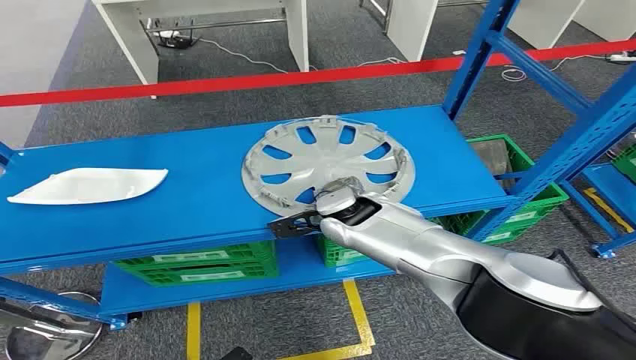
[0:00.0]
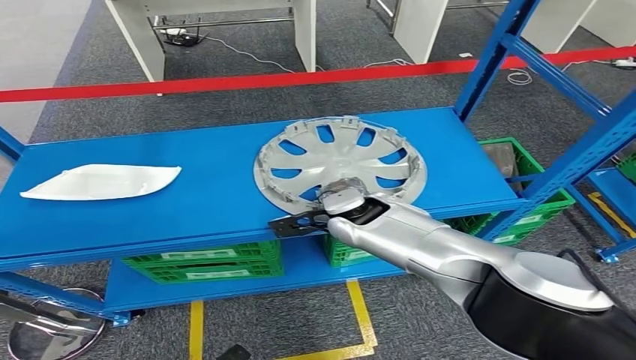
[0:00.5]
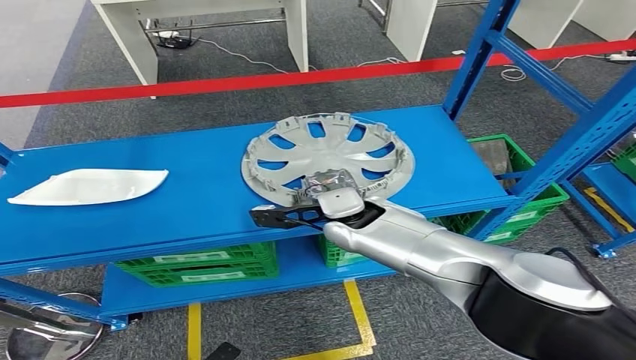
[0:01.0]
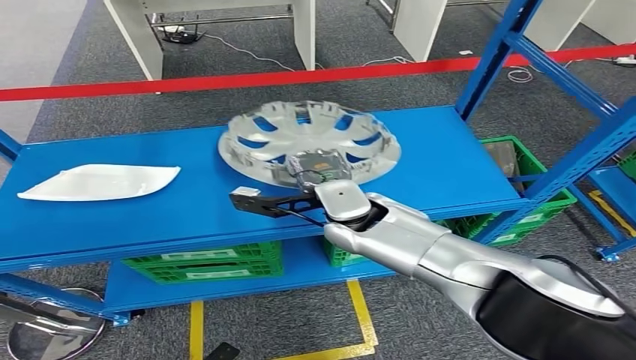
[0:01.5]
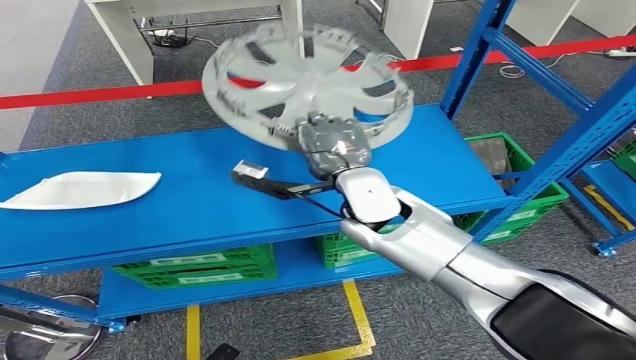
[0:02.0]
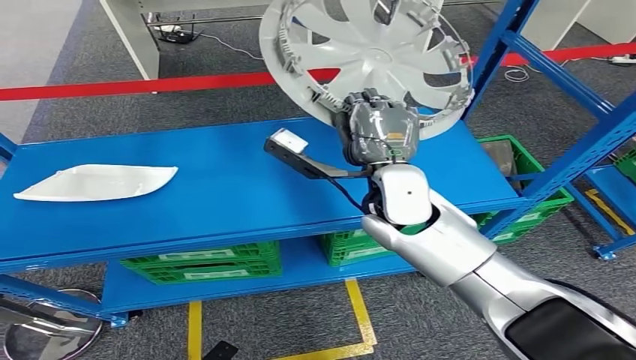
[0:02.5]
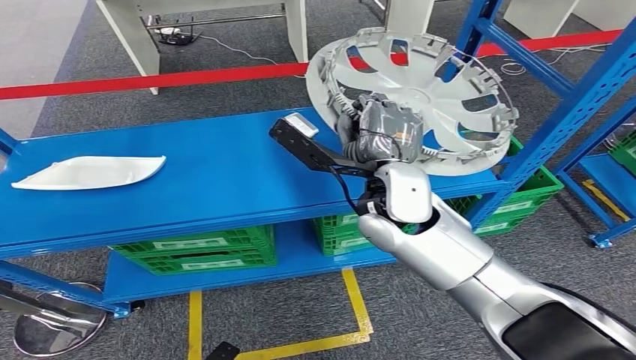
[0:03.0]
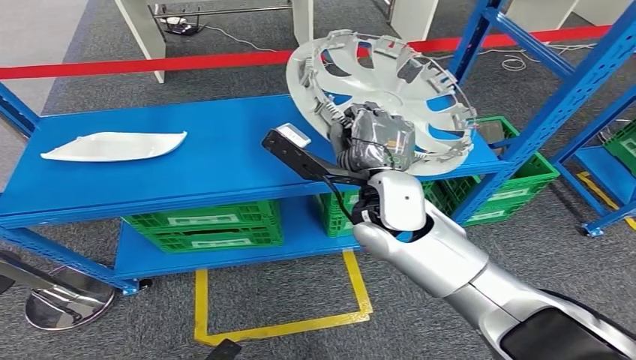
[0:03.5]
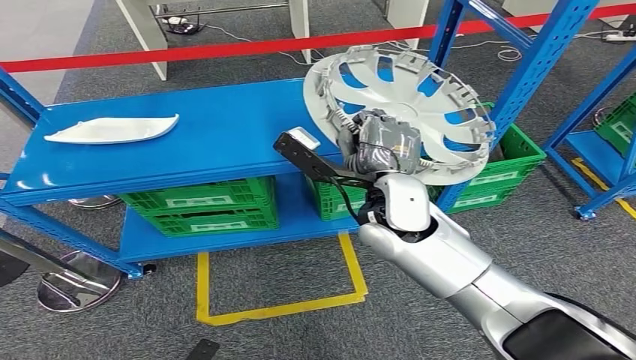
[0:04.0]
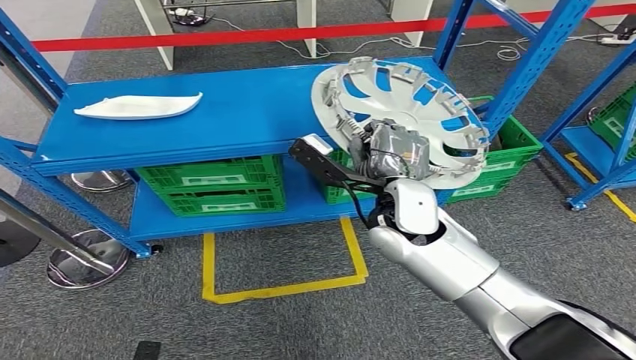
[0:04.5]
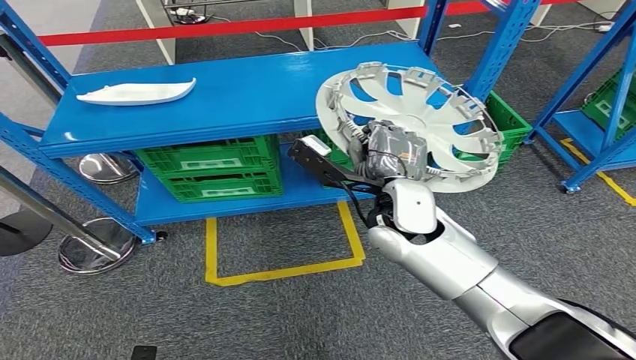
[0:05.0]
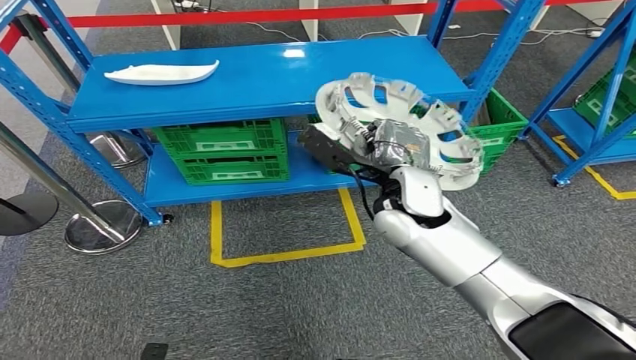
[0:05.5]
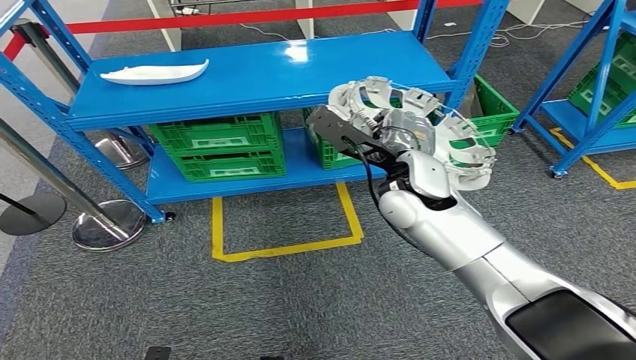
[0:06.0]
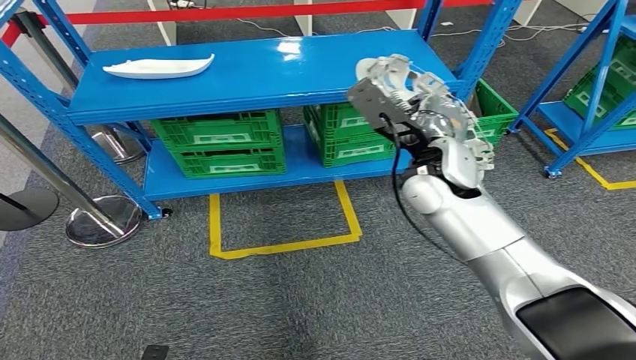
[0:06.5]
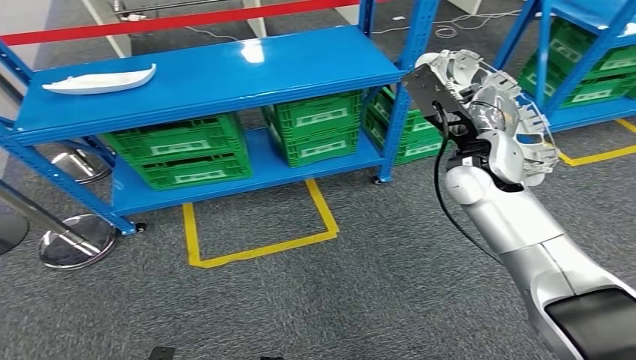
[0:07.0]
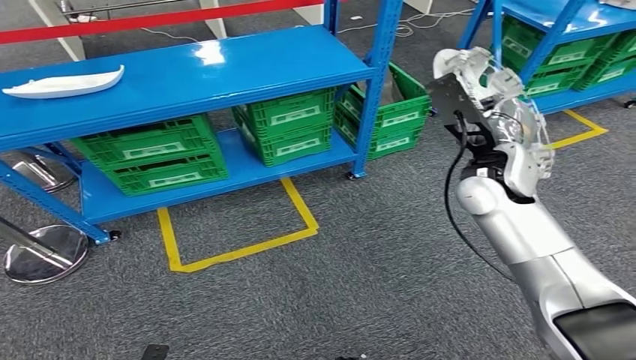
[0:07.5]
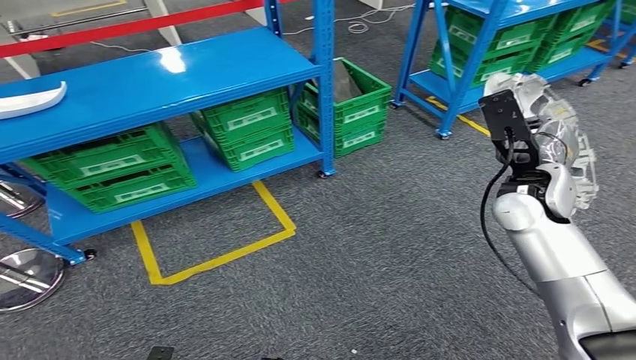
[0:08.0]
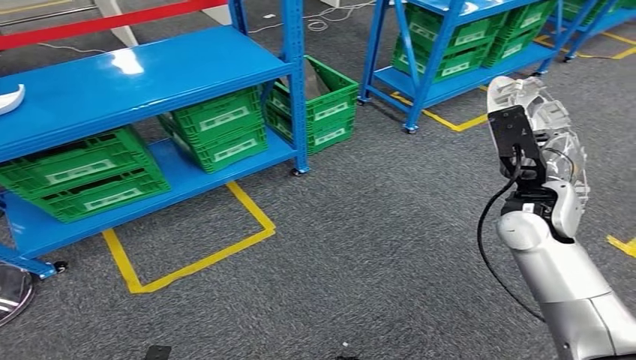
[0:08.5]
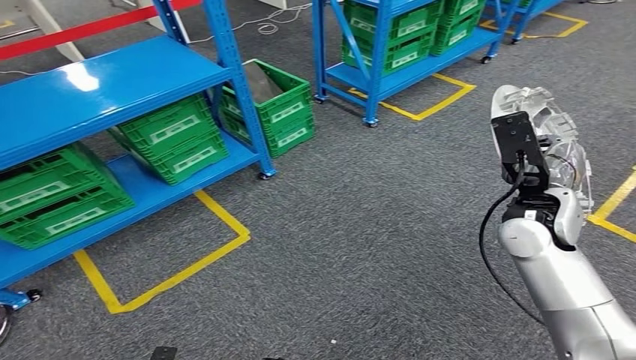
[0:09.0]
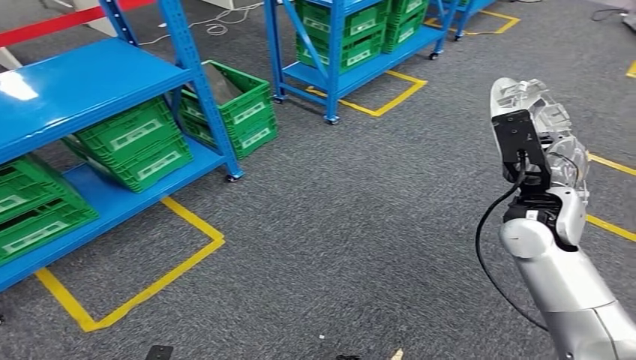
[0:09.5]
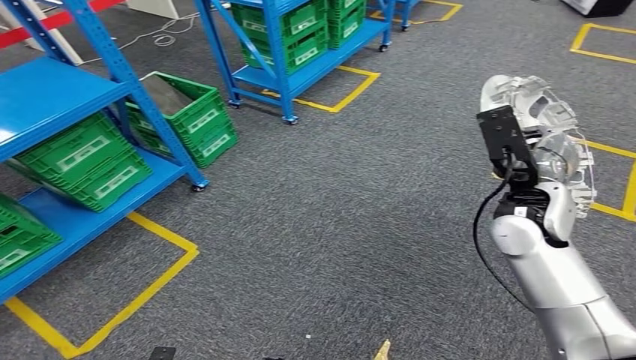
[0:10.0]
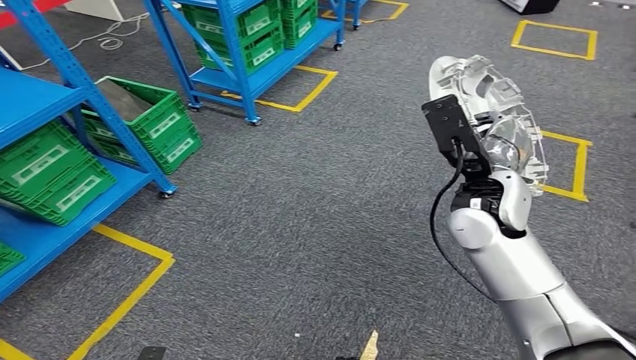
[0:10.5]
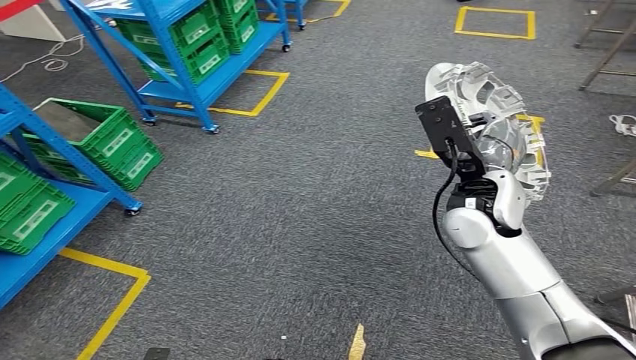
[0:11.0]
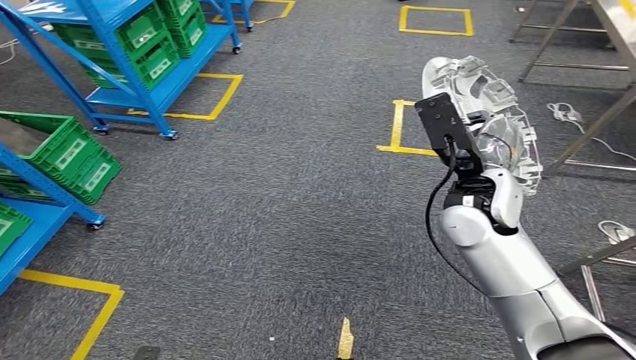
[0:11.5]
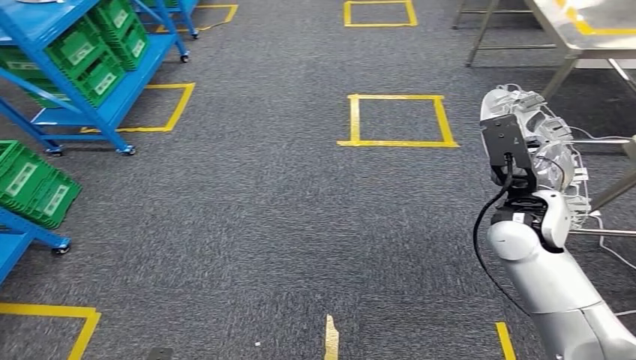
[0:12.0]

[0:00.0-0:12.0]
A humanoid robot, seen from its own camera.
Step, 0:00.0 to 0:04.0: Pick up the small component from the shelf.

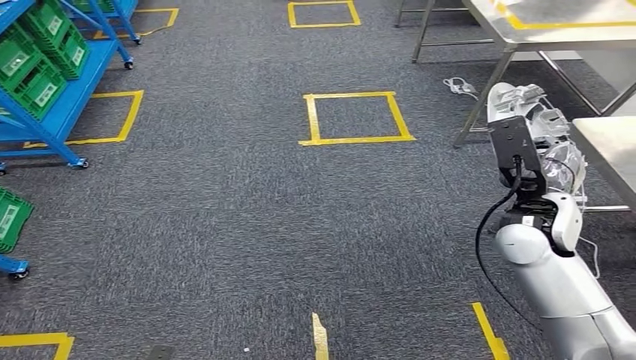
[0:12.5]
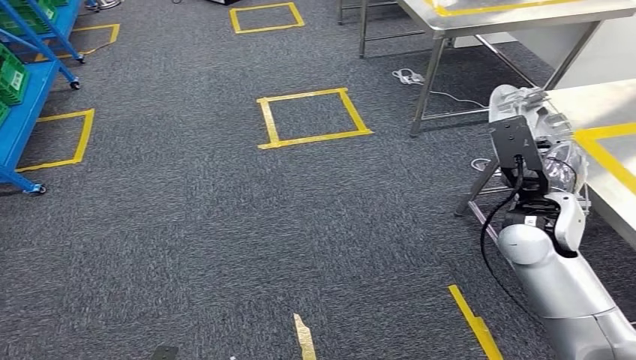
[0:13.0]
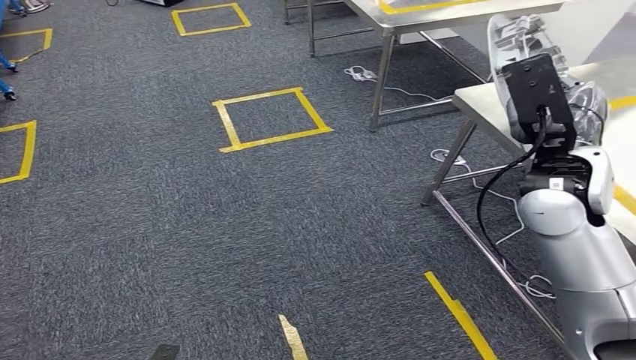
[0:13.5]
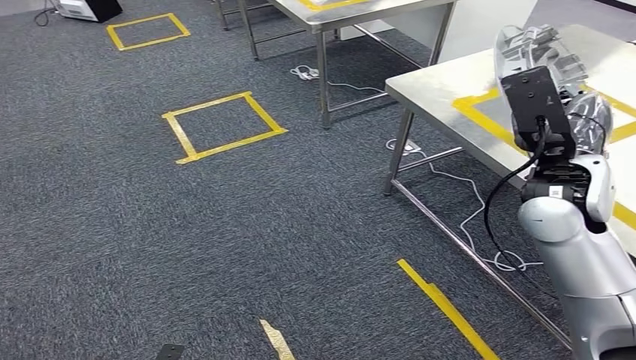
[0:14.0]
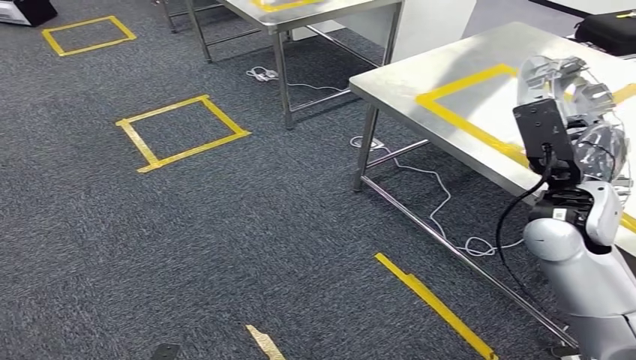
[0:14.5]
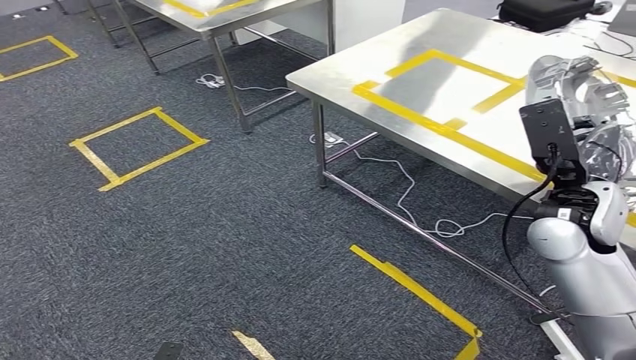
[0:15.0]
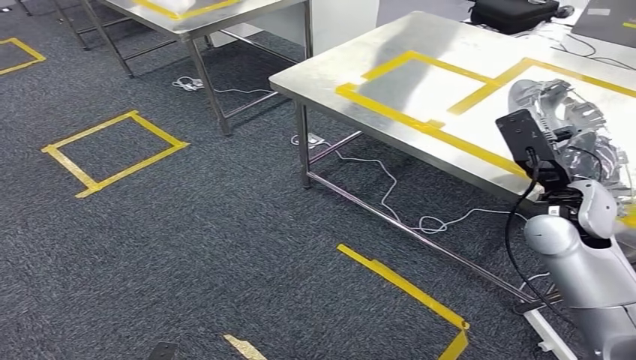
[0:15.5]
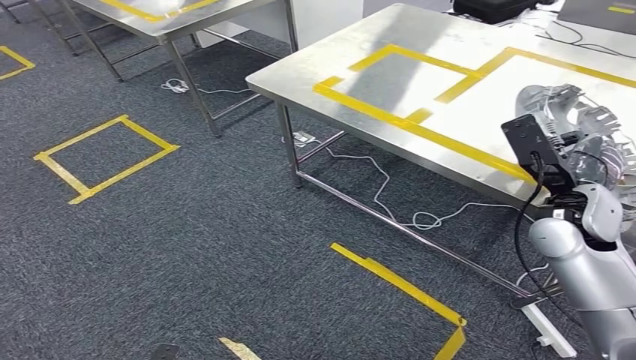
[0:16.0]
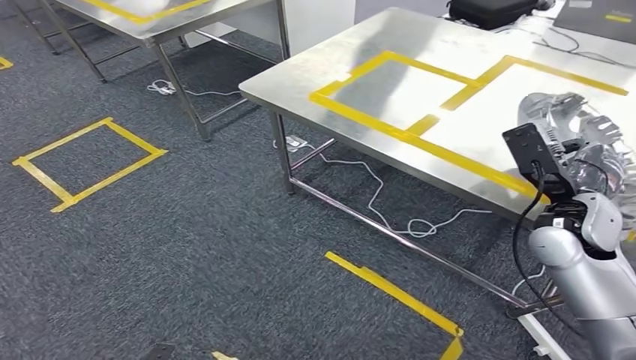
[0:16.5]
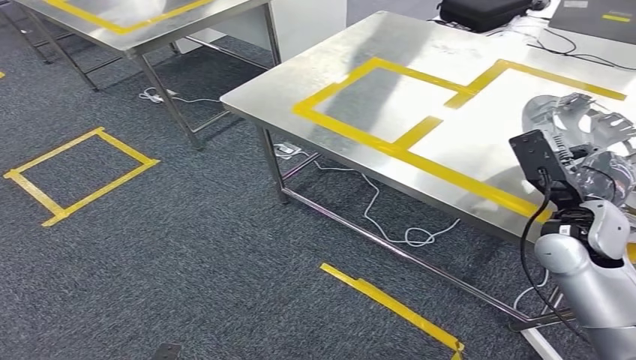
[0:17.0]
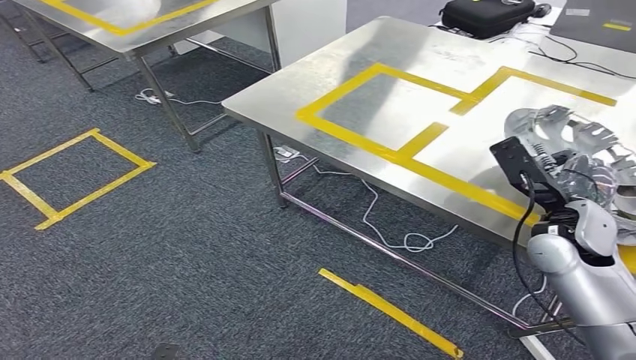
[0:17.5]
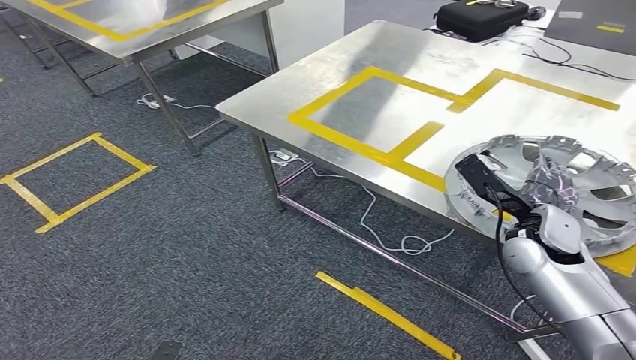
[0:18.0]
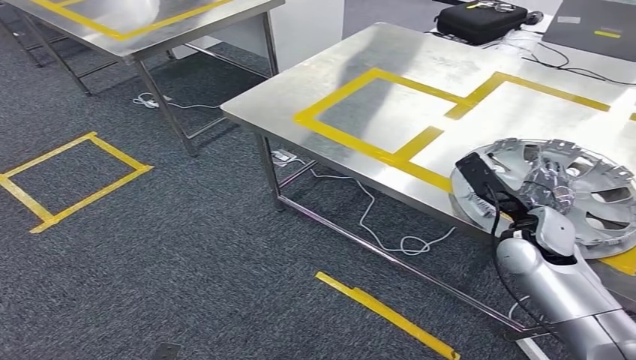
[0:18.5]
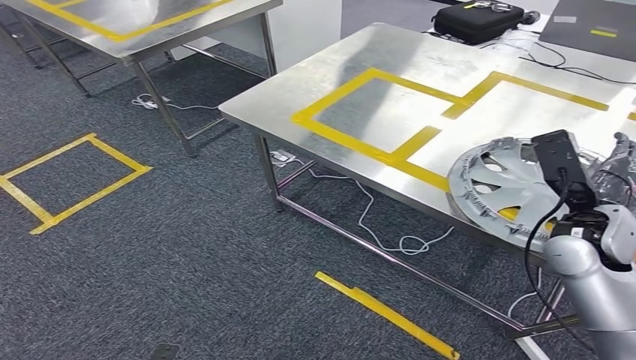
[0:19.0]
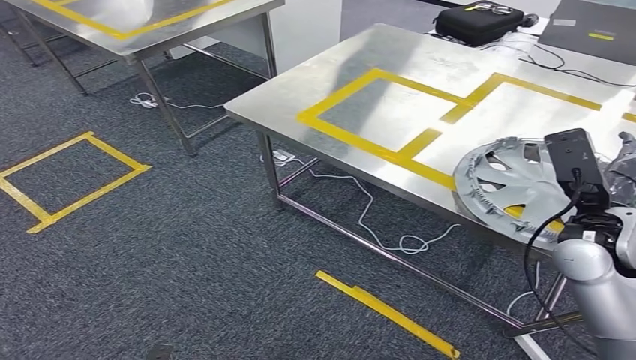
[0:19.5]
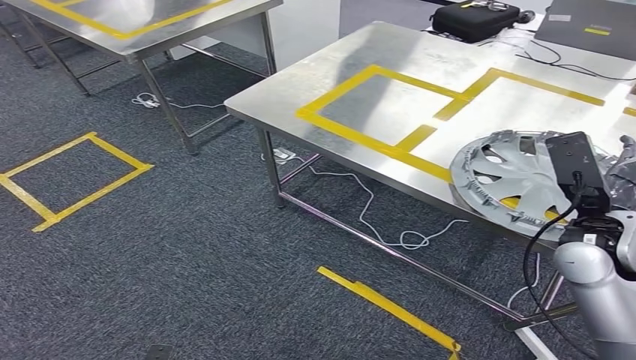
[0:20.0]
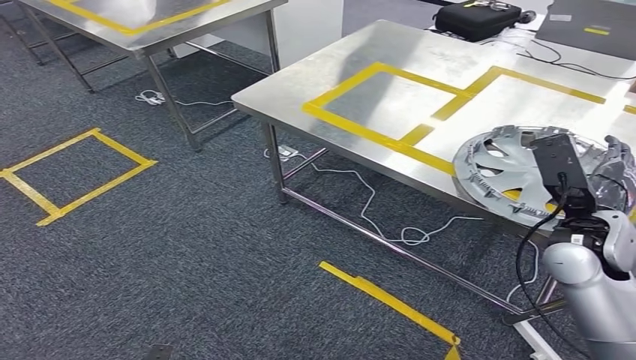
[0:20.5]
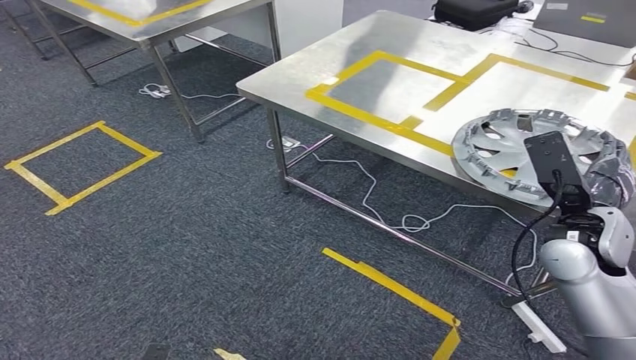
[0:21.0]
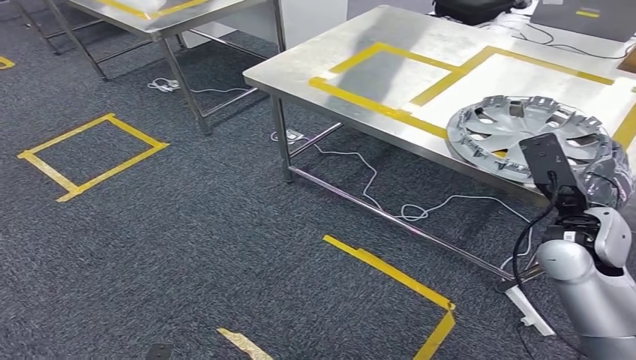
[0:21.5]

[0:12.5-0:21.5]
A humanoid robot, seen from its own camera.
Step, 0:12.5 to 0:15.5: Move the small component to the workbench.
Step, 0:16.0 to 0:20.0: Insert the small component into the corresponding slot on the workbench.
